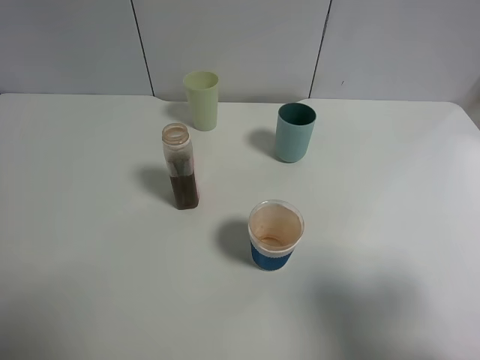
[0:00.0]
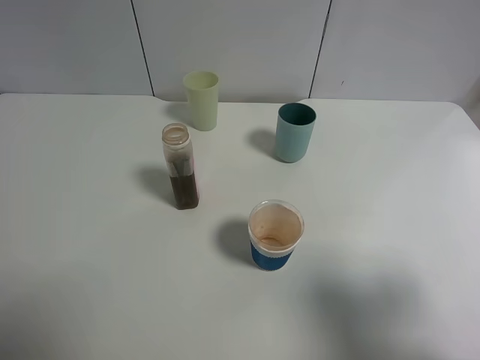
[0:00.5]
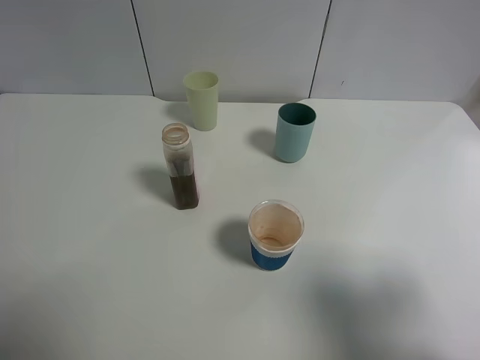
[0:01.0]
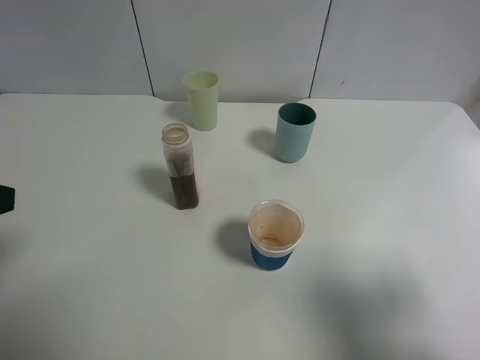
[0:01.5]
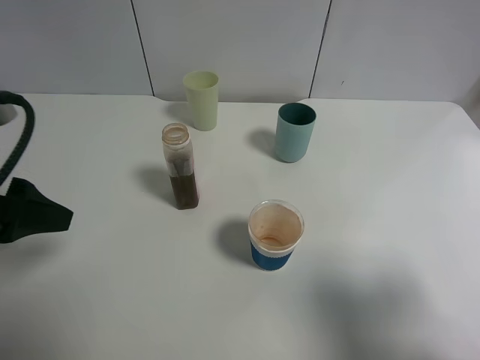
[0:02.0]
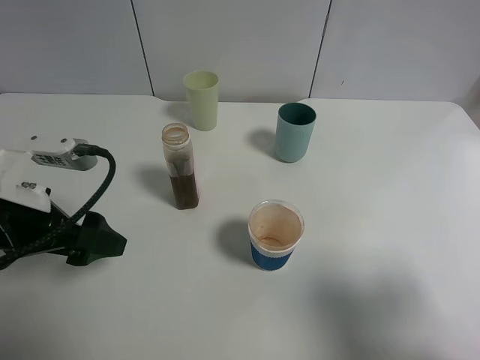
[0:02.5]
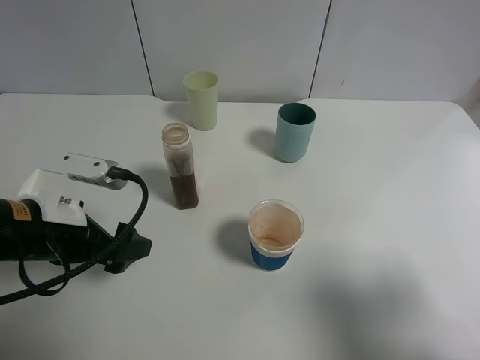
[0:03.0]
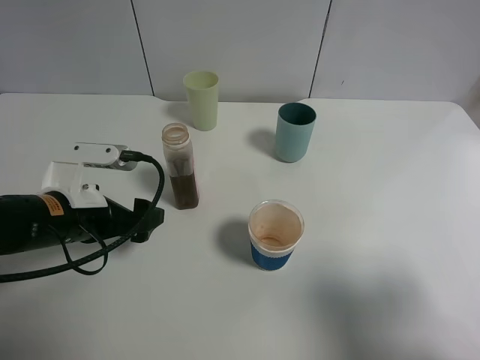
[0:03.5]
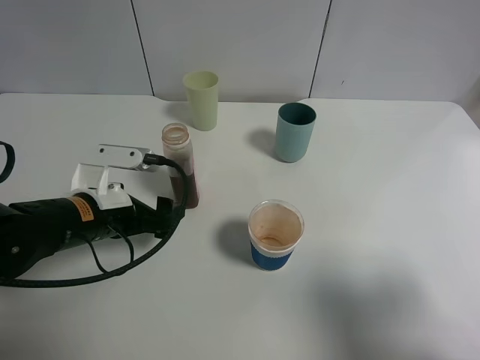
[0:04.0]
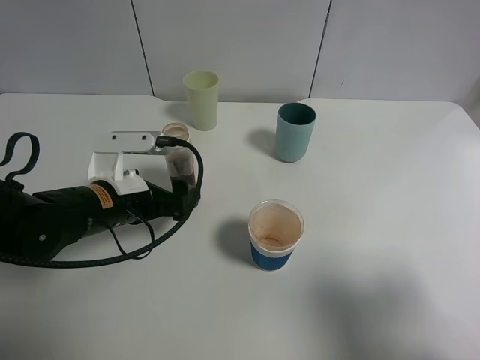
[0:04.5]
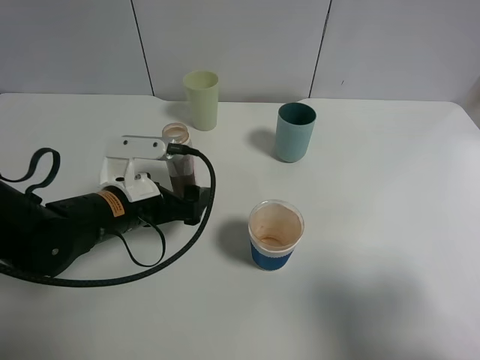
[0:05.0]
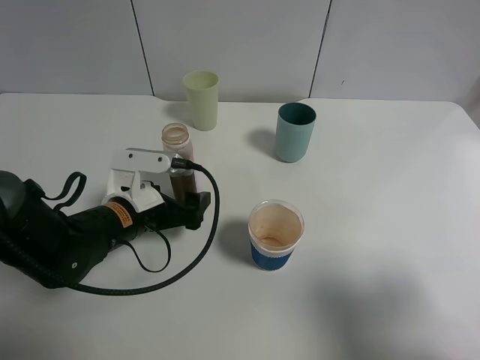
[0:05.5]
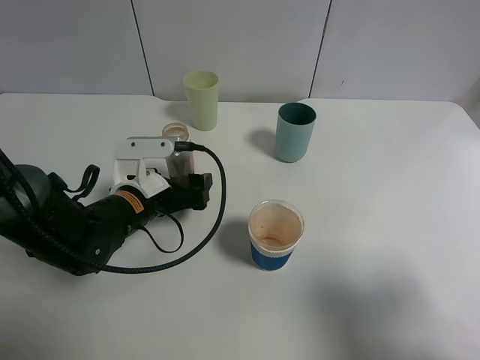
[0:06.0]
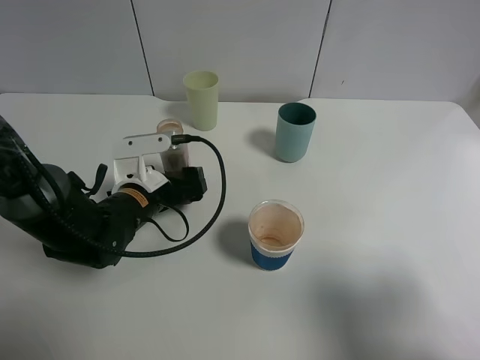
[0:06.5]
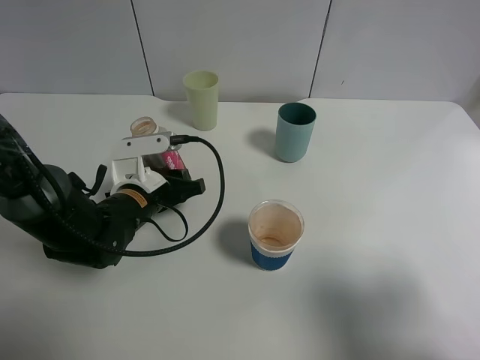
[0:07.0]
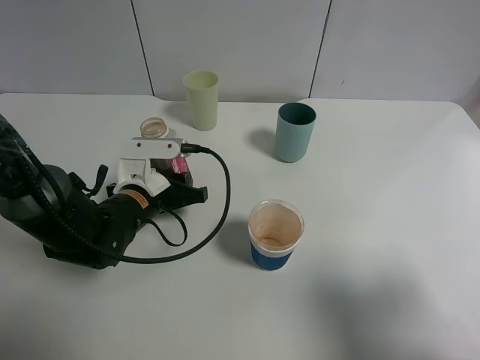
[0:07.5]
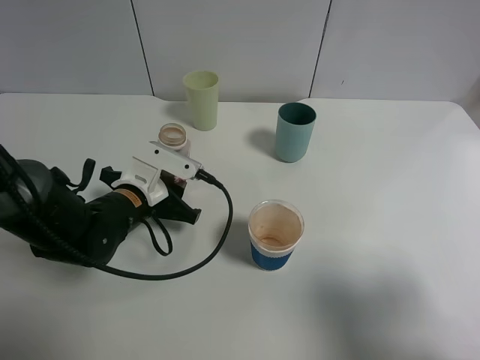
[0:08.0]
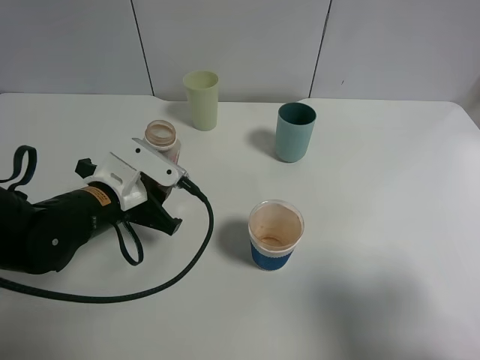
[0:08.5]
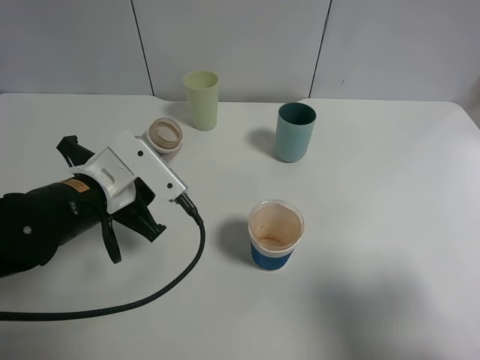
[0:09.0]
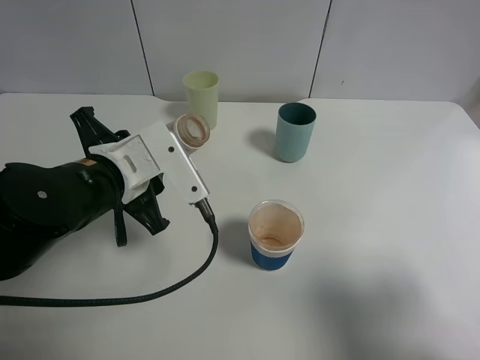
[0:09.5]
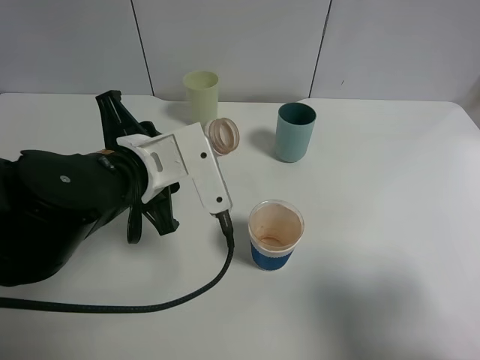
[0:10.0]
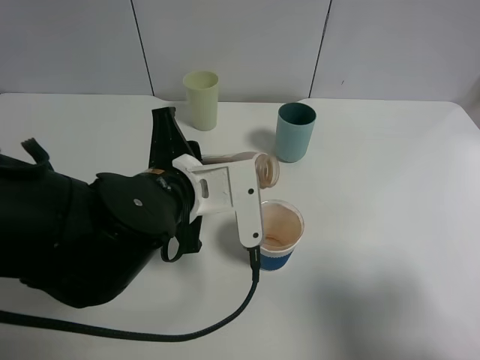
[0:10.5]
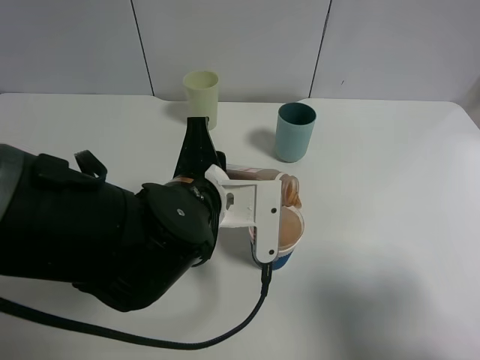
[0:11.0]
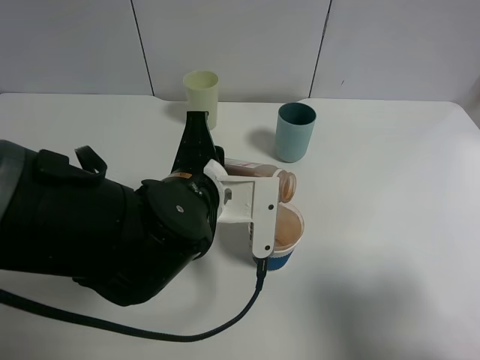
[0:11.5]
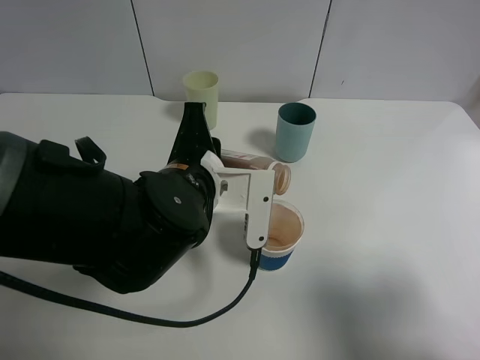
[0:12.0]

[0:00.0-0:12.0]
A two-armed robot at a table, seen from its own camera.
Task of the whole recording: use a clamp to hold the bottle of the drink, pour the beverage into a random cup, then clamp the cup containing the drink and pour the drink into another random cup.
Step, 0:00.0 to 0:08.0: Pick up the drink bottle with left gripper.
0:00.0 to 0:02.0: The left gripper shifts about 15 cm forward.
0:02.0 to 0:04.0: The left gripper is displaced downward, to the right and forward by approximately 15 cm.
0:04.0 to 0:06.0: The left gripper changes place by approximately 5 cm.
0:06.0 to 0:08.0: The left gripper closes up.
0:08.0 to 0:10.0: The left gripper goes about 15 cm upward and backward.
0:10.0 to 0:12.0: The left gripper heads to the right, covering approximately 5 cm.

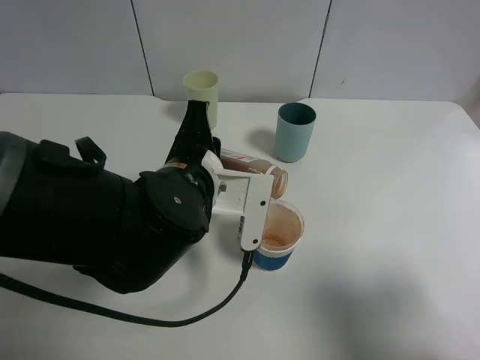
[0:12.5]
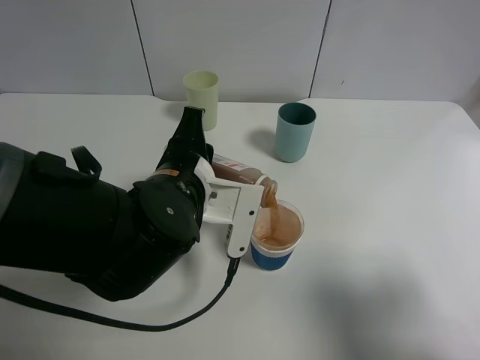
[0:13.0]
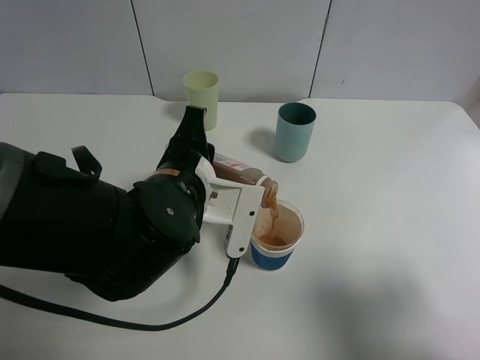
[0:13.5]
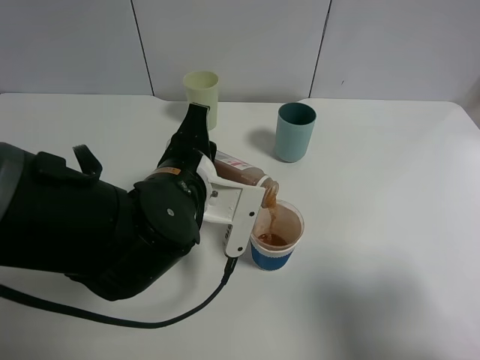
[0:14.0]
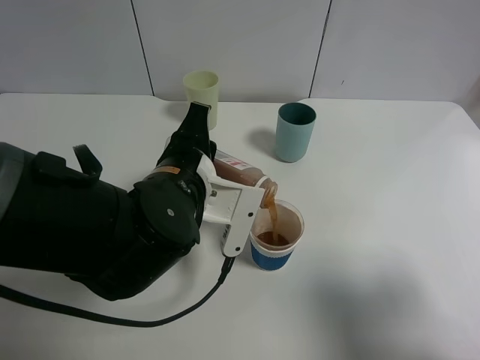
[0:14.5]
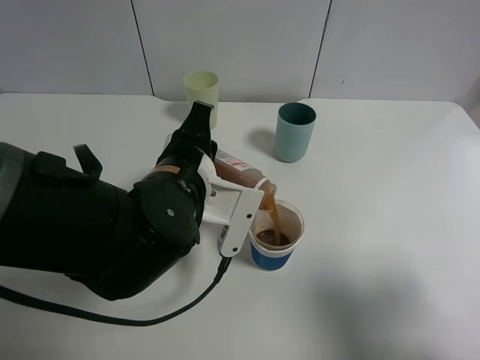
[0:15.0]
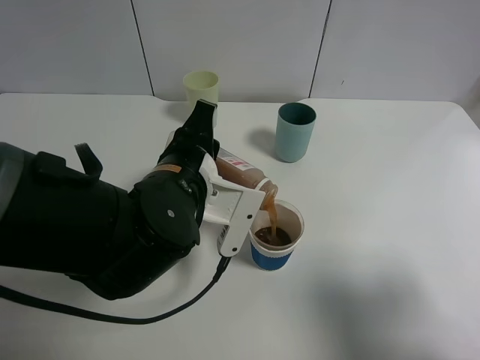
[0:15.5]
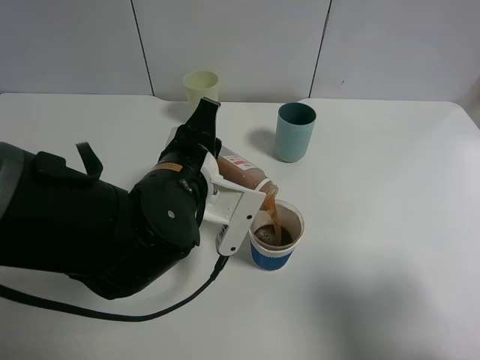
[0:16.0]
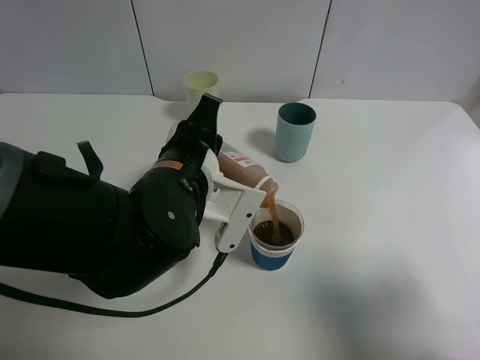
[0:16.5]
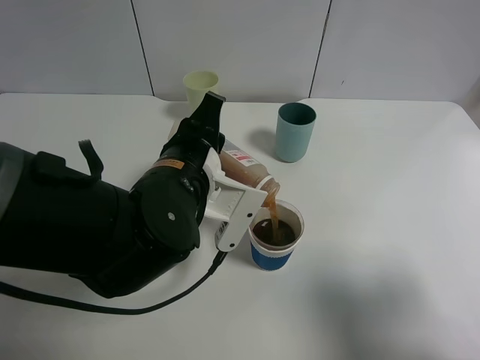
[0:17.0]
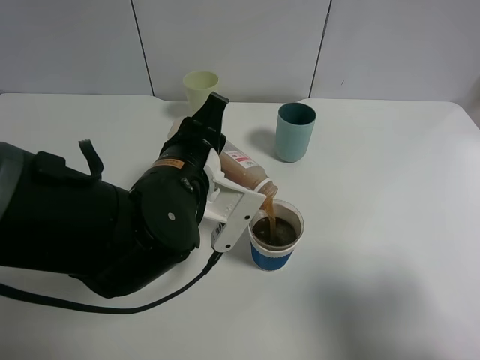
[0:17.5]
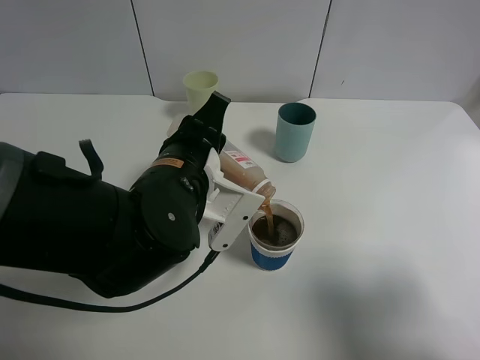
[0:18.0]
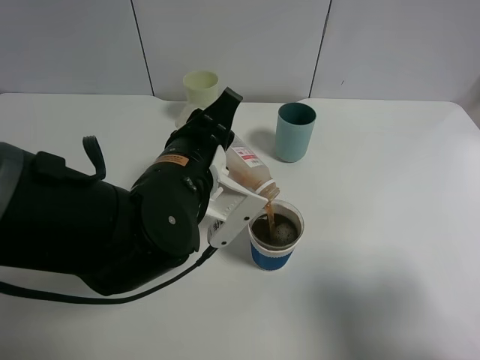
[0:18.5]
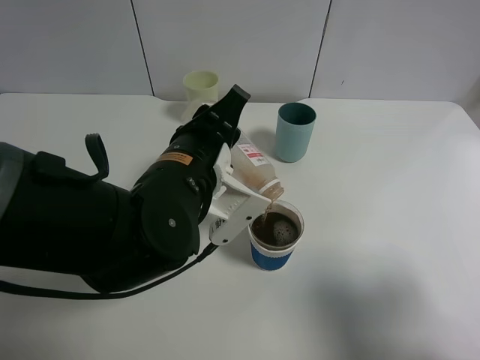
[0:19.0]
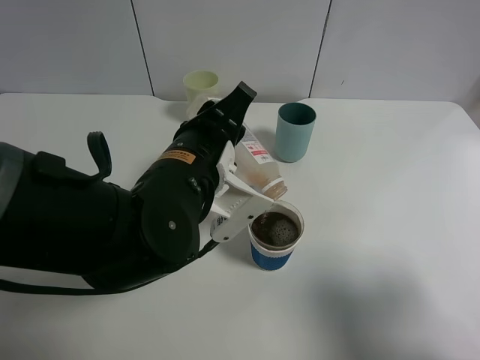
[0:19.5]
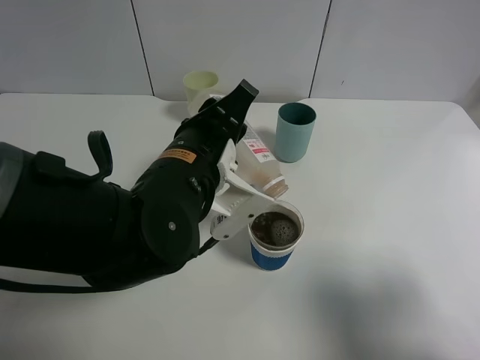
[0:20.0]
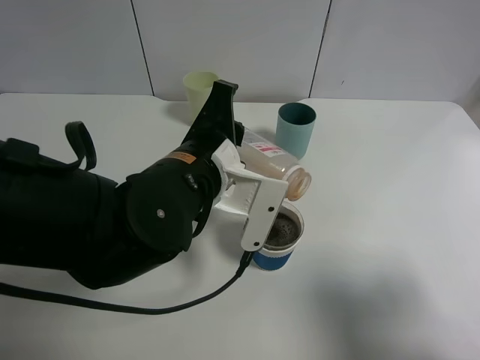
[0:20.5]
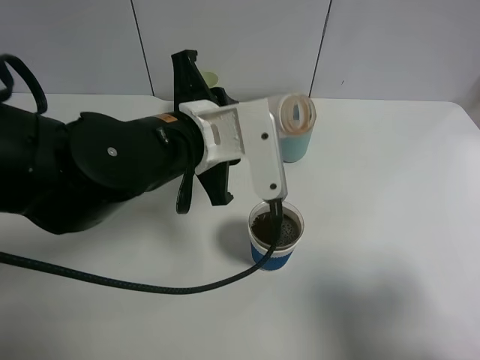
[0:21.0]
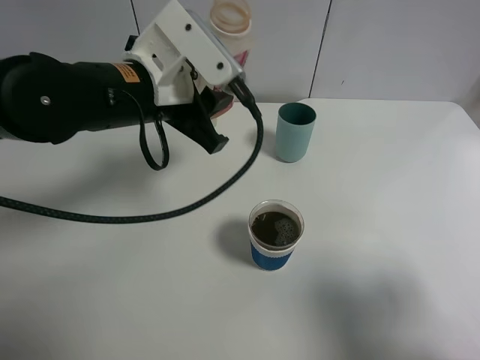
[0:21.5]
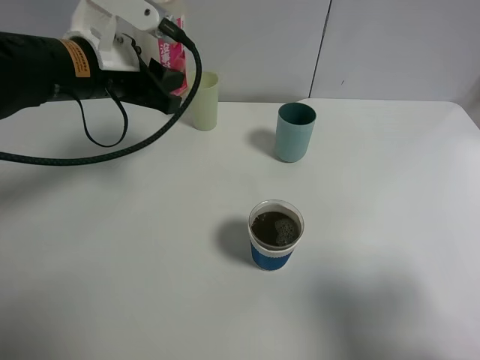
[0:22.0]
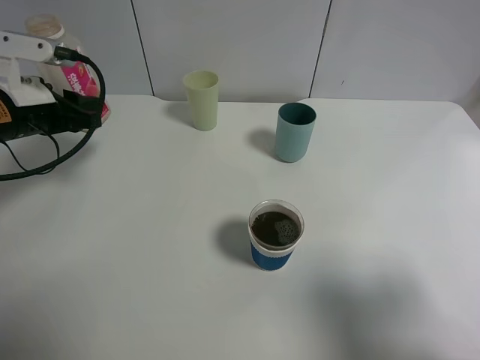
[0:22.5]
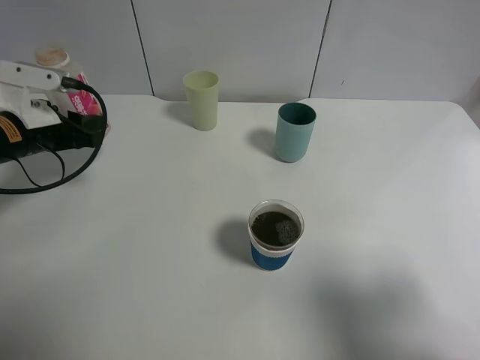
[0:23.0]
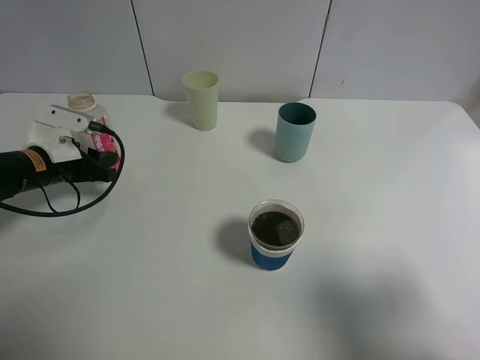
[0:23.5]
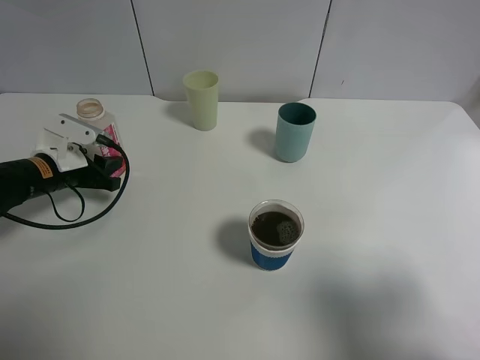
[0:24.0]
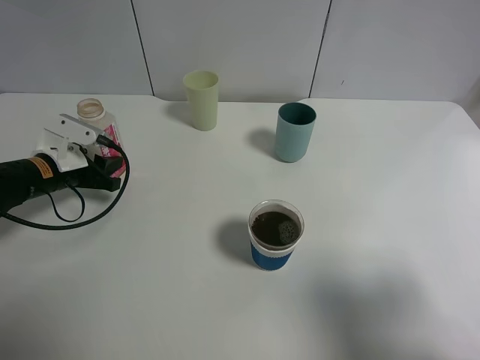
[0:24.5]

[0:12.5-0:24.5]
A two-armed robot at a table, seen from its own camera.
Task of the whole recording: use a clamp to hold the bottle of the drink, pour the beverage into a random cup, then clamp the cup containing the drink and pour the drink into another random cup.
Step, 0:12.5 to 0:20.0: Pour the drink into the paper cup with left gripper.
0:12.5 to 0:16.5: The grippers move only a little.
0:16.5 to 0:18.5: The grippers stay close to where they were, moving slightly.
0:20.5 to 0:22.5: The left gripper moves to the left, approximately 25 cm.
0:22.5 to 0:24.5: The left gripper moves downward, roughly 10 cm.

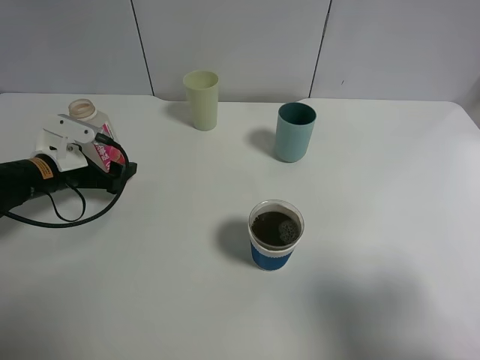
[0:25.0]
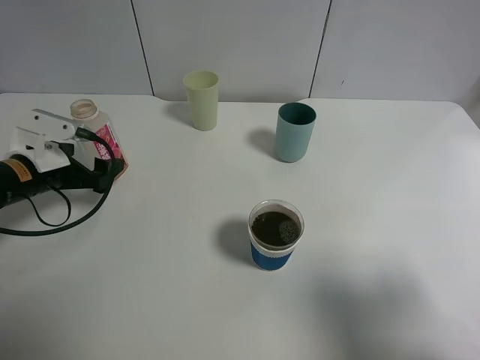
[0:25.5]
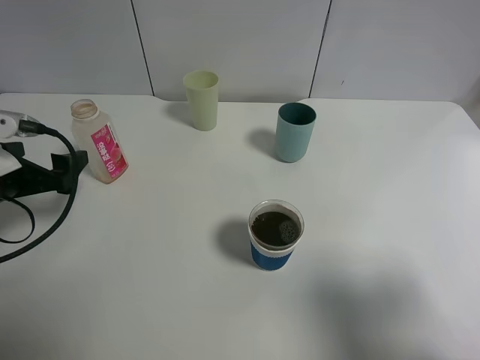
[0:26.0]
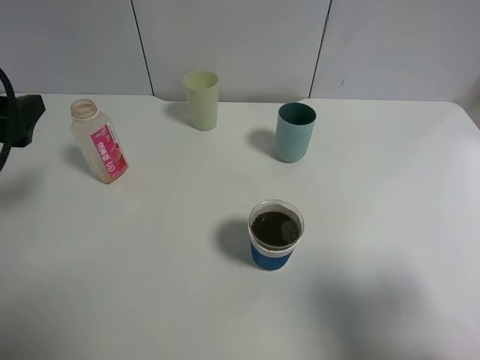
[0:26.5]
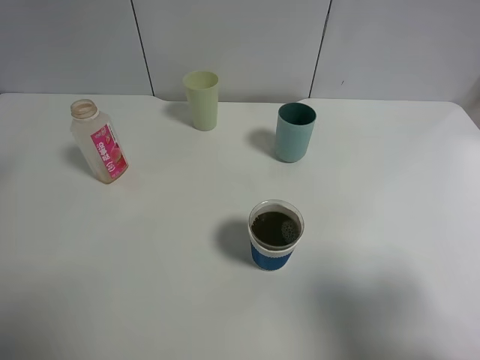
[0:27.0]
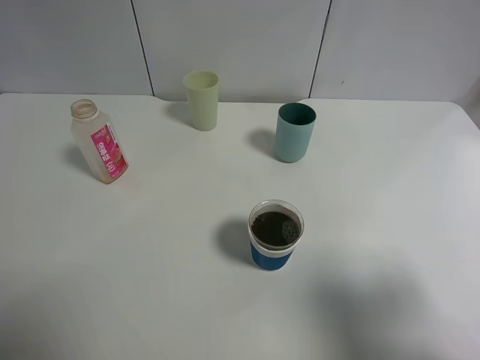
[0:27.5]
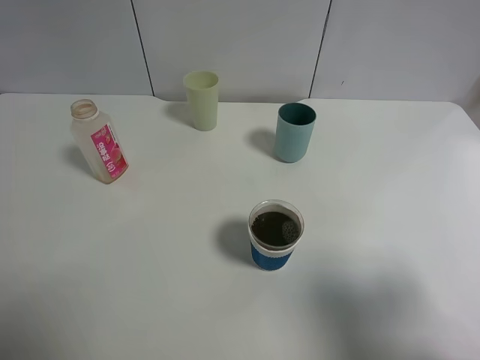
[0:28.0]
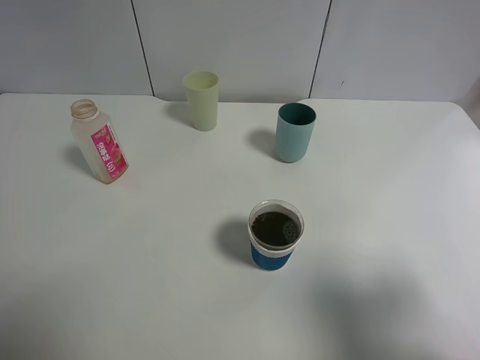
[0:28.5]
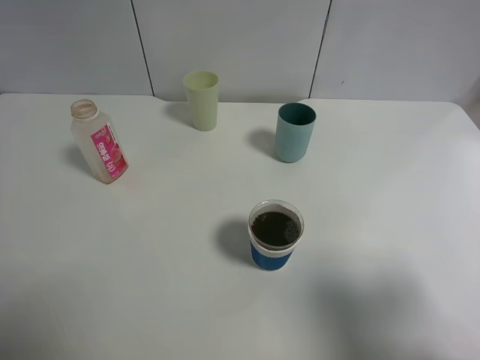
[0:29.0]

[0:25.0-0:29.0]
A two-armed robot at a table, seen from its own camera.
Task of the whole recording: use a clamp to hold the bottle of the drink, pour the beverage into a random cup, then clamp the cup containing the drink and pour the drink into another random cup.
0:25.0 to 0:27.0: The left gripper travels upward and backward by approximately 30 cm.
